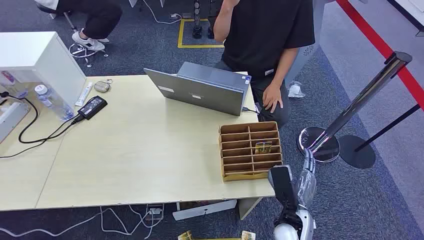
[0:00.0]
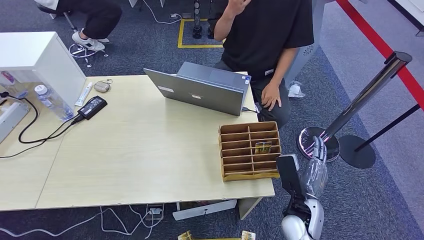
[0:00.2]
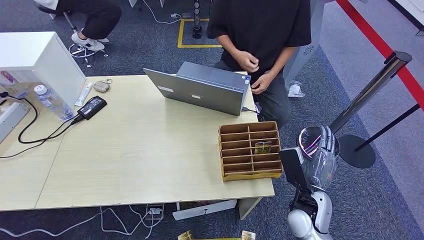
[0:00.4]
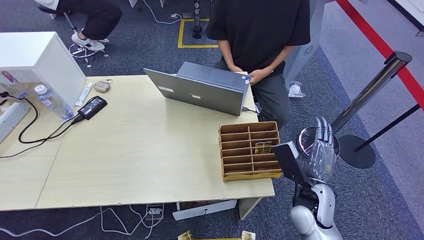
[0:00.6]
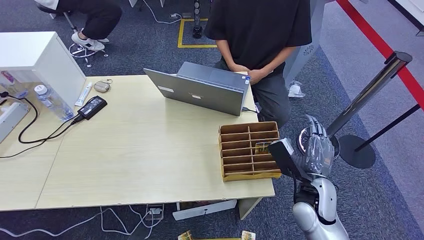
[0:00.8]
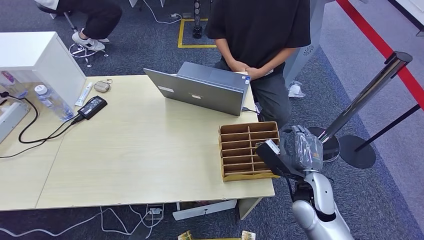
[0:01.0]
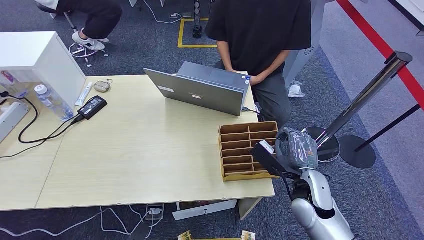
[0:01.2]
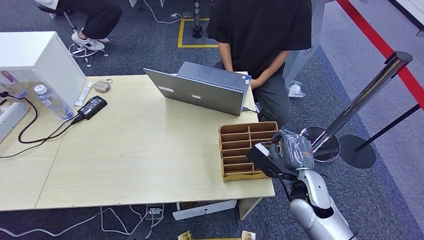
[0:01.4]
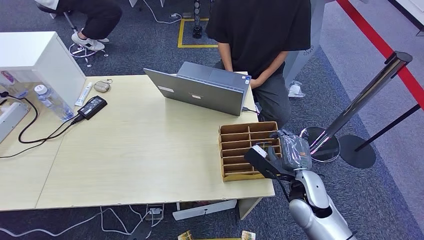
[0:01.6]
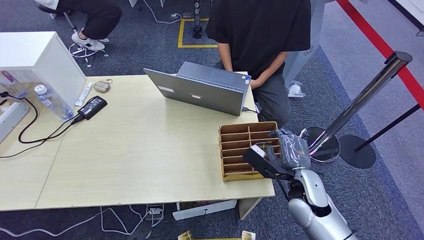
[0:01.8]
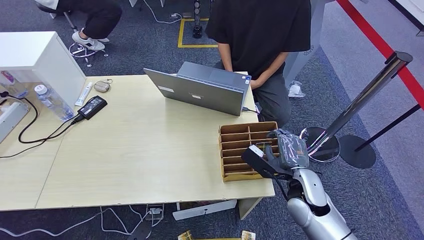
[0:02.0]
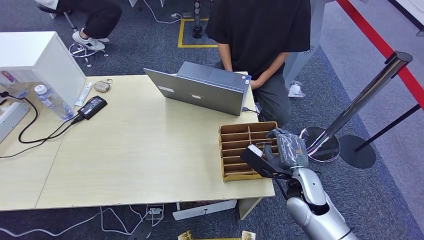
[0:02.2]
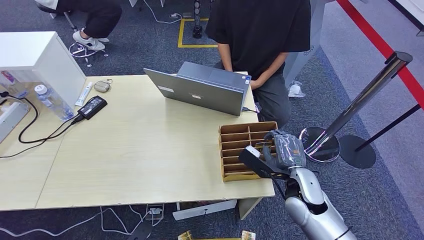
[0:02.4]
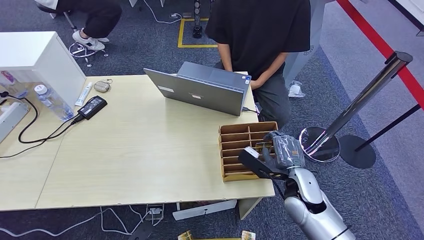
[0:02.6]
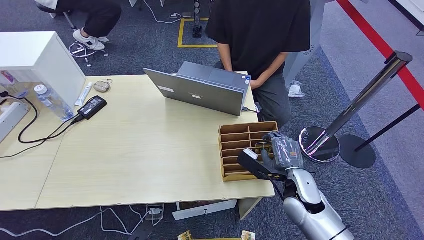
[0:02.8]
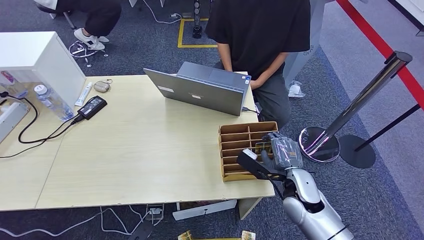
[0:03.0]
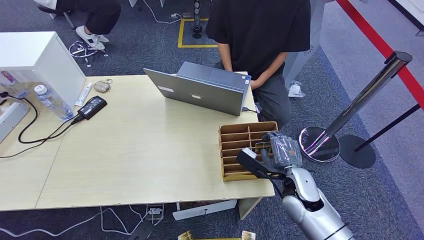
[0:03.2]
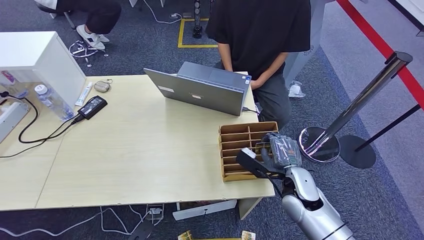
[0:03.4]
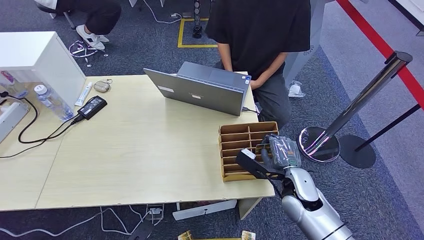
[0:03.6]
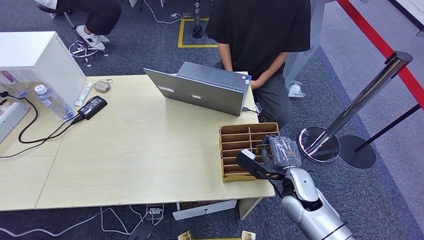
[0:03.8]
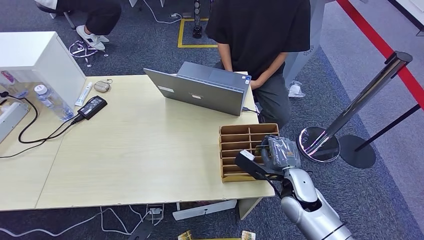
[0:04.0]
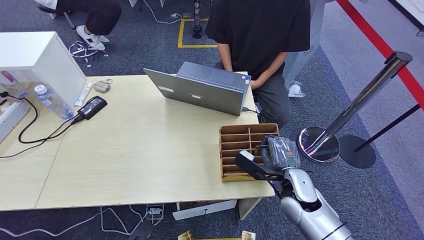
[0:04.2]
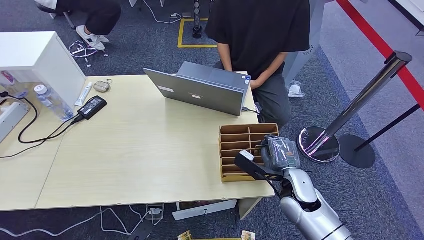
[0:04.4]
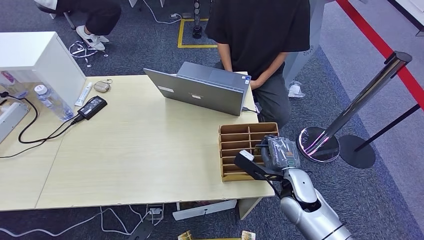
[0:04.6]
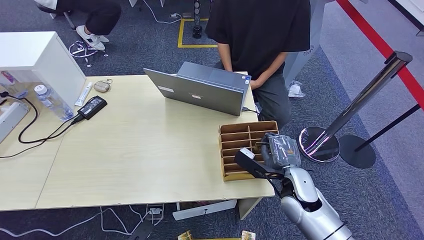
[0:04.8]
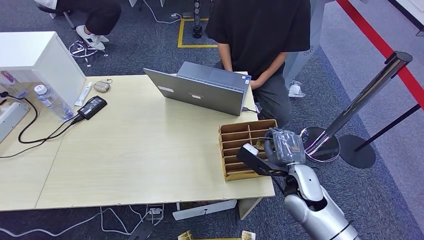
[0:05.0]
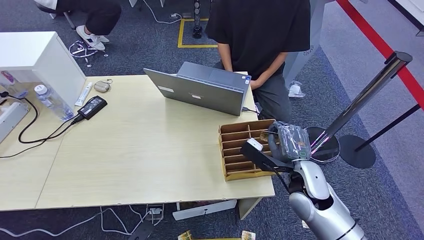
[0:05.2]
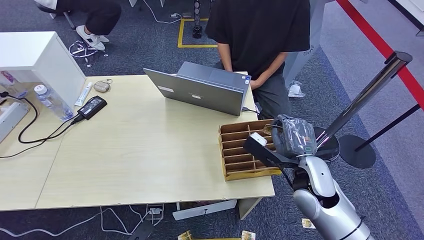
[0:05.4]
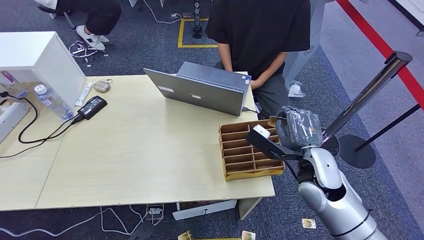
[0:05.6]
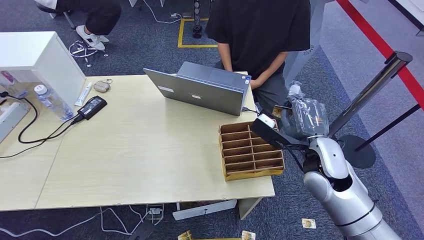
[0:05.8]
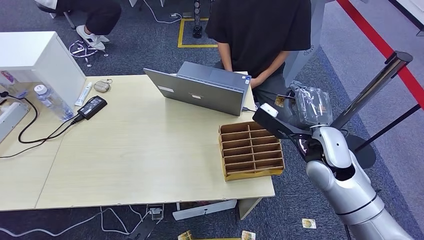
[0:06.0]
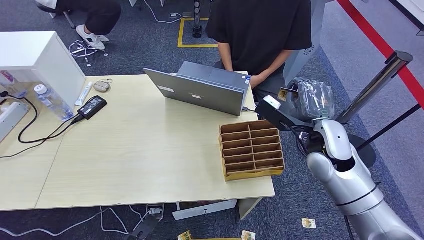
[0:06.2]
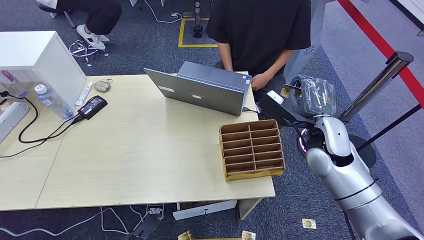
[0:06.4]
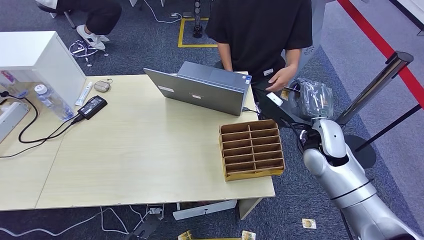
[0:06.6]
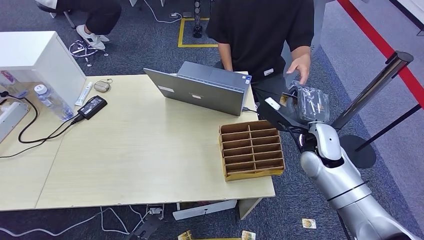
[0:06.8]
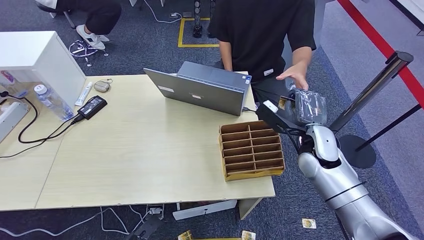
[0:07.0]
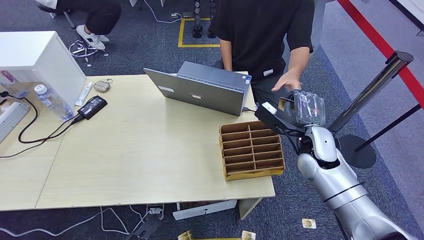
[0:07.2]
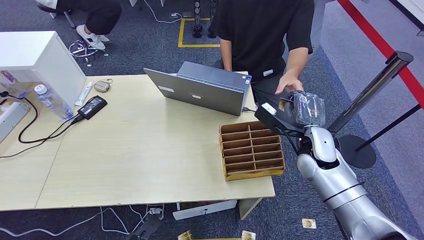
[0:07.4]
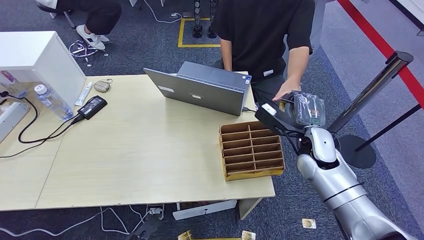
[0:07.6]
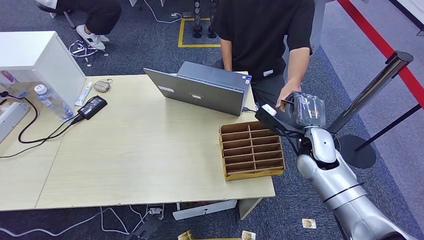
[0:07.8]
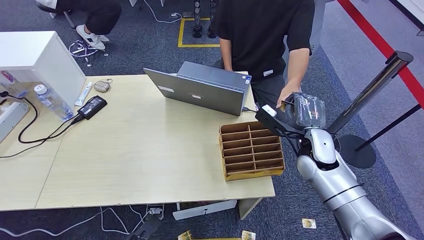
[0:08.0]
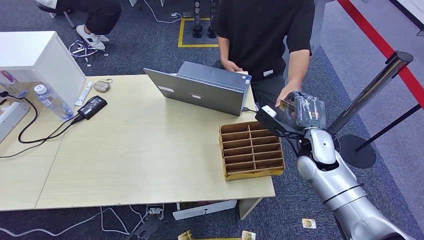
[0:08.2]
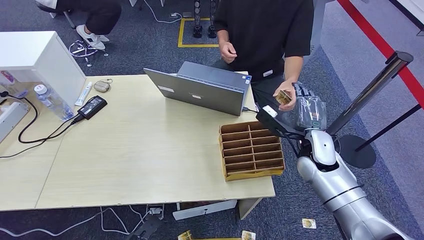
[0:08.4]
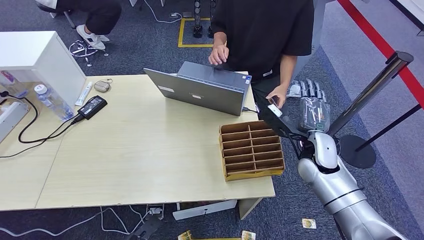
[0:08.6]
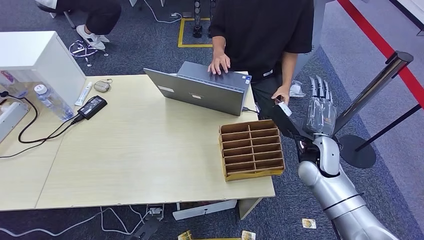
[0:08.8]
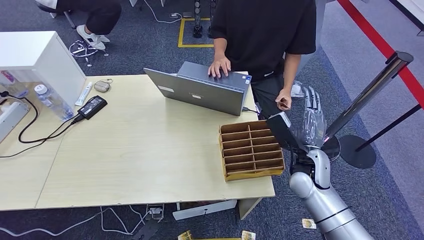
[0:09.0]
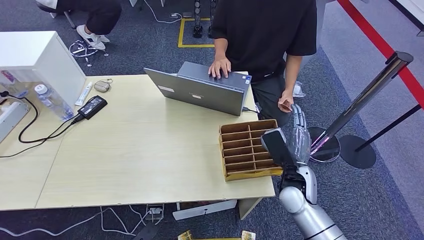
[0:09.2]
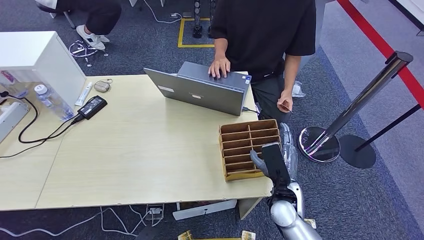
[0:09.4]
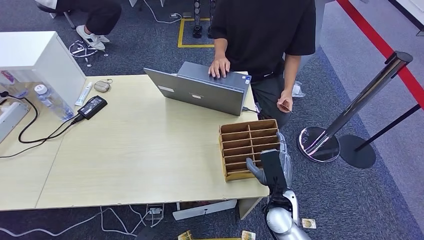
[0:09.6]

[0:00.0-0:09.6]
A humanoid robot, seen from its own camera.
Step, 0:00.0 to 0:06.2: Pick up the key card from the card box.
Step, 0:06.4 to 0:09.6: Hand the key card to the target.
0:01.6 to 0:03.2: The hands make only small movements.
0:03.2 to 0:04.8: The two hands keep their place.
0:04.8 to 0:06.4: The right hand is displaced upward and forward by about 15 cm.
0:06.4 to 0:08.0: The right hand goes about 5 cm downward.
0:08.0 to 0:09.6: The right hand travels backward, downward and to the left by roughly 20 cm.

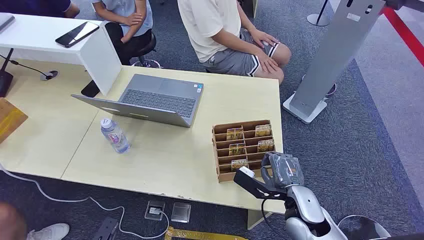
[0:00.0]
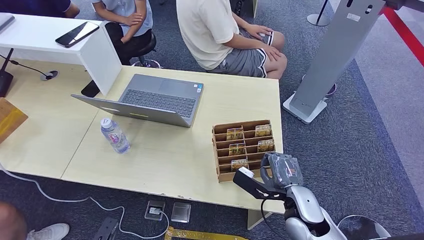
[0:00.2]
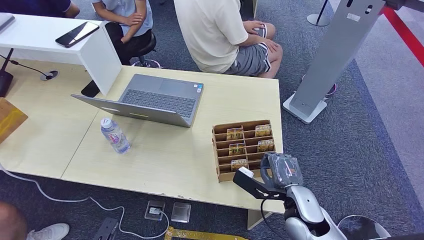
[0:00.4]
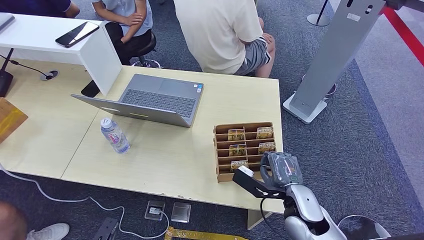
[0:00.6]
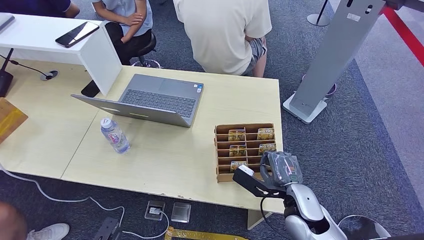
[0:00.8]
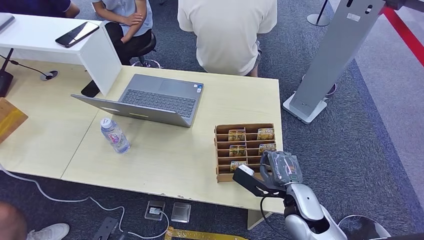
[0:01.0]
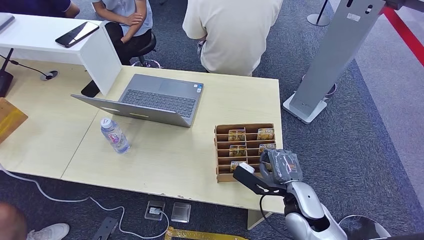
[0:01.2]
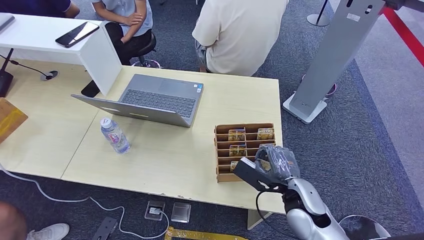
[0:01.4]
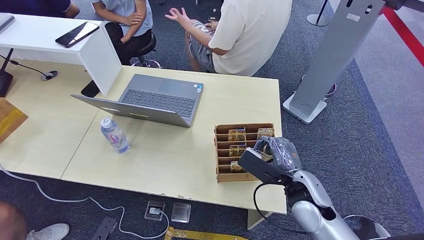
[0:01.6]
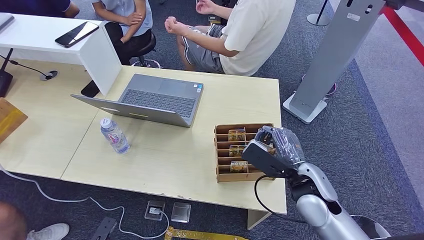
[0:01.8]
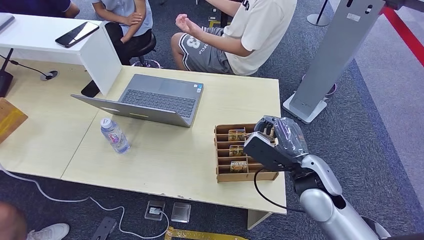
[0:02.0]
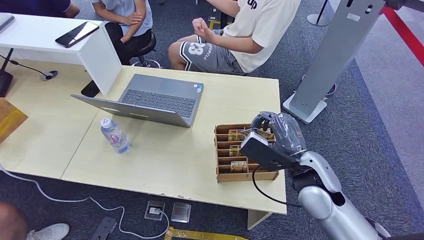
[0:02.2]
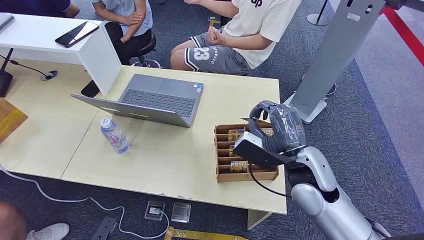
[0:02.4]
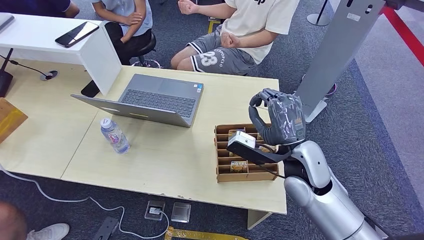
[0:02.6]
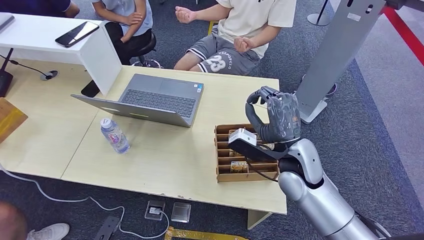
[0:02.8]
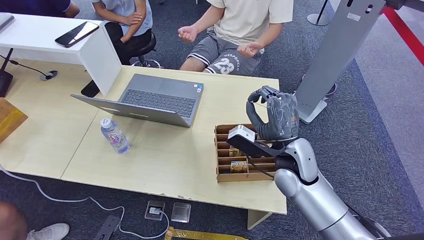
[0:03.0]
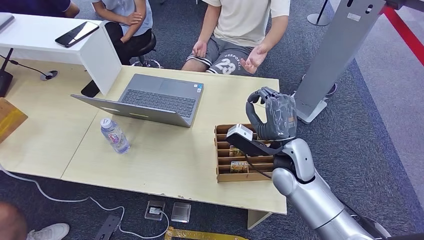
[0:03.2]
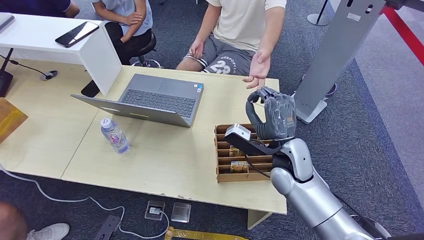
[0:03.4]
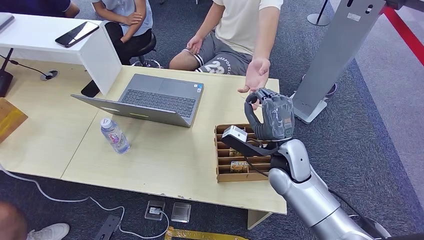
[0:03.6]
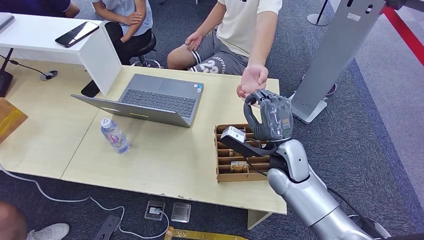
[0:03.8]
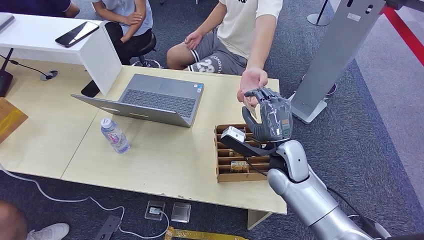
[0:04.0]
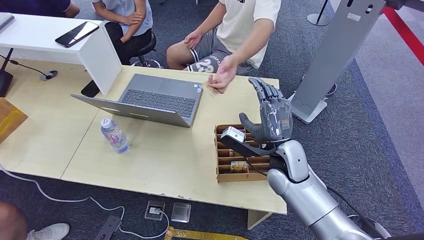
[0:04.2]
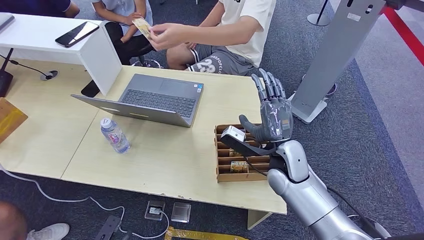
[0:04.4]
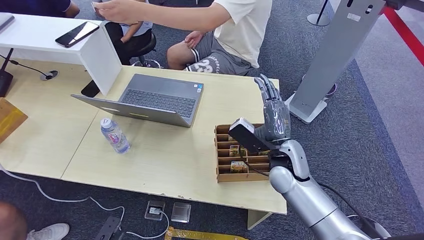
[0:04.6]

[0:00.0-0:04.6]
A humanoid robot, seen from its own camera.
Step, 0:00.0 to 0:01.8: Pick up the key card from the card box.
Step, 0:02.2 to 0:04.6: Hand the key card to the target.
0:01.6 to 0:03.0: The right hand moves forward and upward, some 10 cm.
0:03.0 to 0:04.6: The hands stay close to where they were, moving slightly.

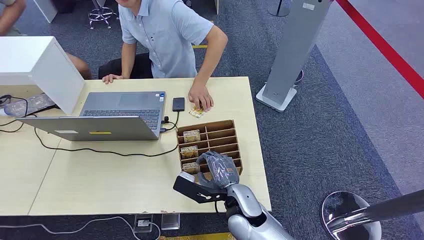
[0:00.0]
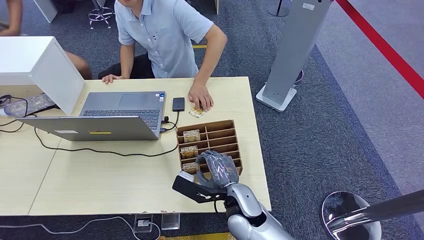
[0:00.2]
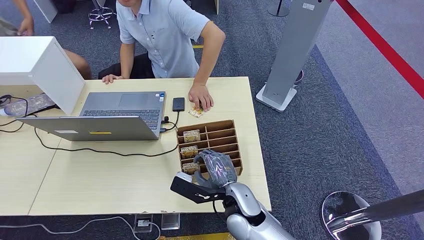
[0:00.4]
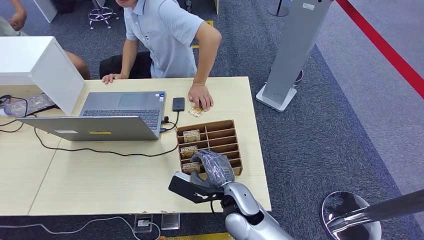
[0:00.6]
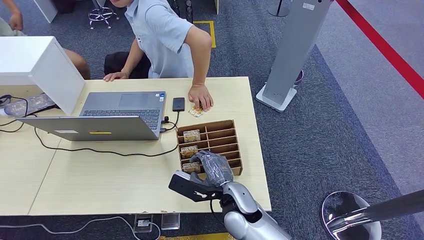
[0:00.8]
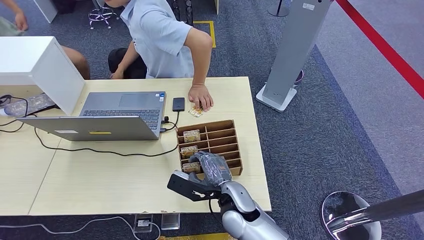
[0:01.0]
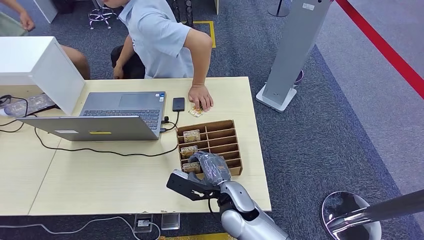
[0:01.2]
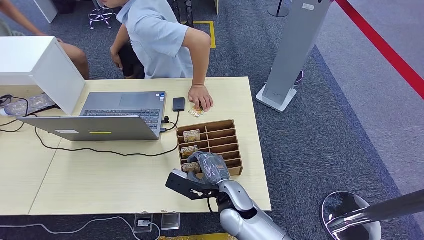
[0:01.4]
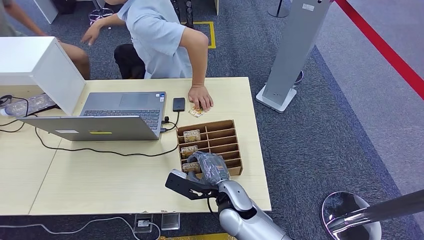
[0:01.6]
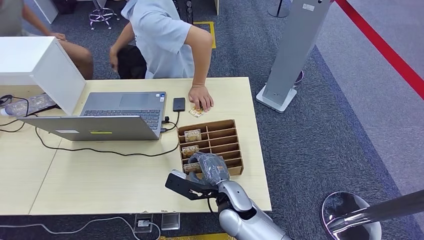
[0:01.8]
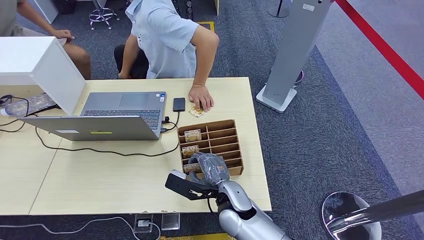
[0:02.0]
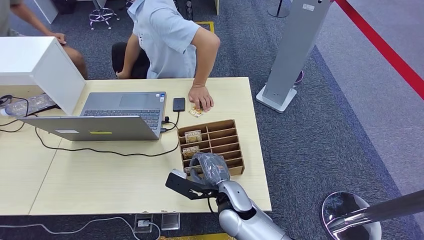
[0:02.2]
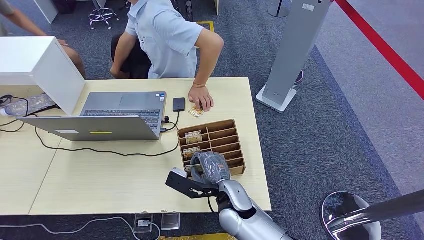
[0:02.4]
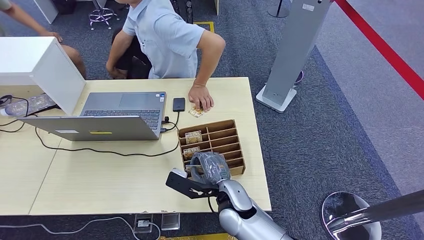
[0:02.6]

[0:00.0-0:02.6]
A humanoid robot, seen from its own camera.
0:01.2 to 0:02.6: Neither hand changes place.
